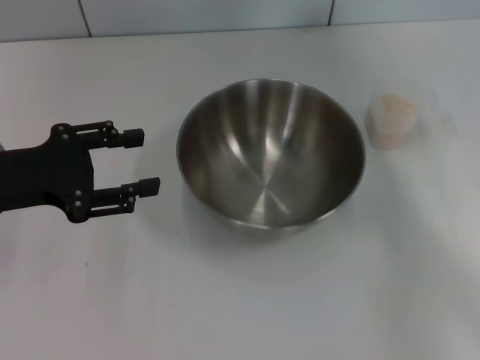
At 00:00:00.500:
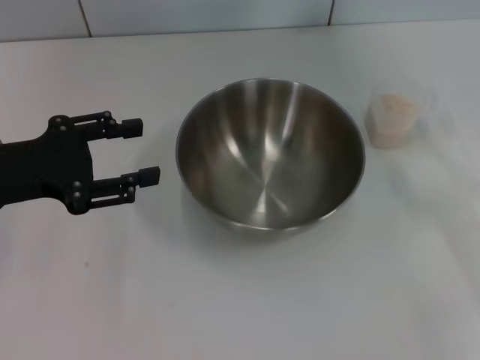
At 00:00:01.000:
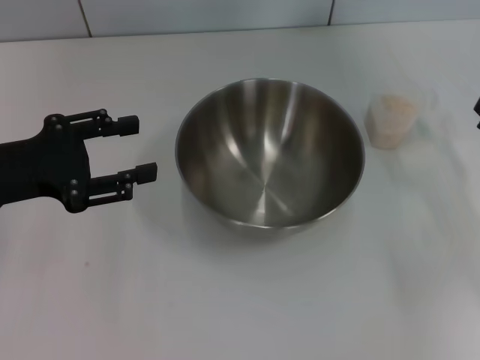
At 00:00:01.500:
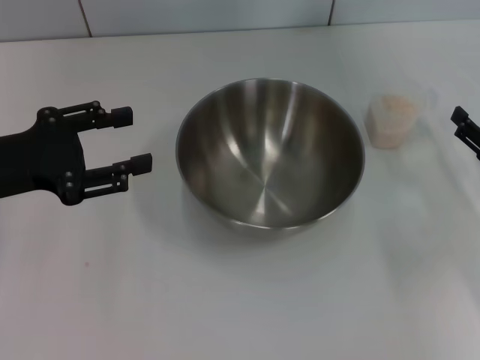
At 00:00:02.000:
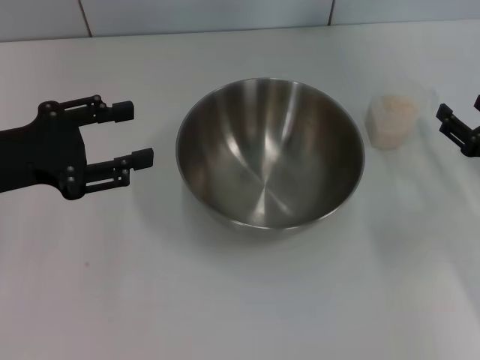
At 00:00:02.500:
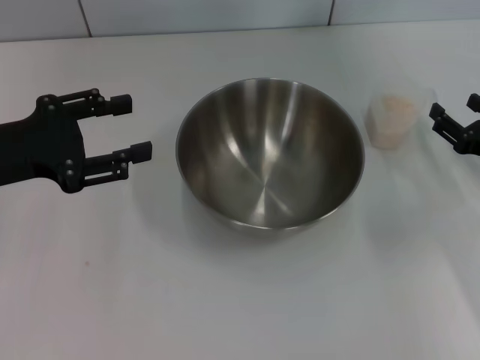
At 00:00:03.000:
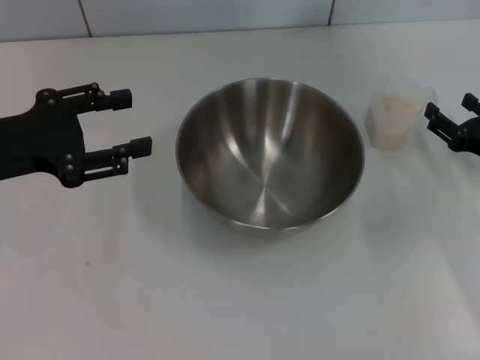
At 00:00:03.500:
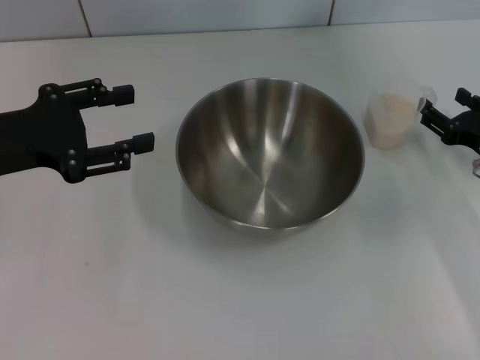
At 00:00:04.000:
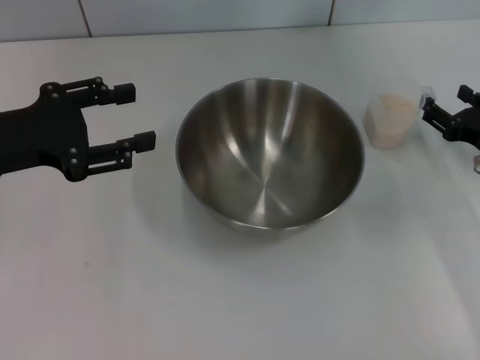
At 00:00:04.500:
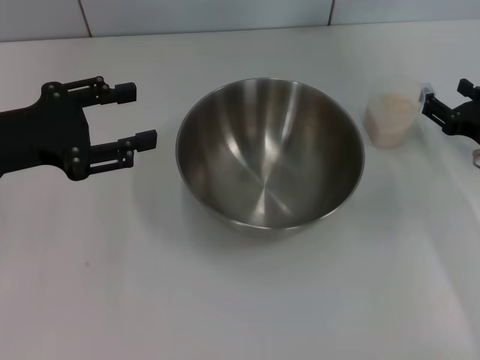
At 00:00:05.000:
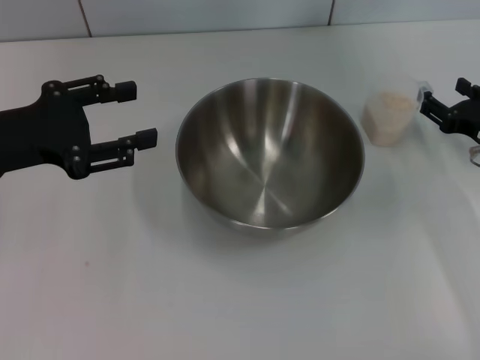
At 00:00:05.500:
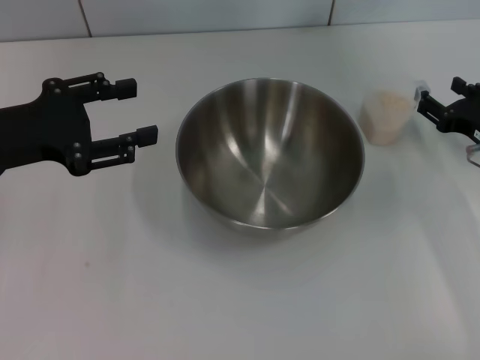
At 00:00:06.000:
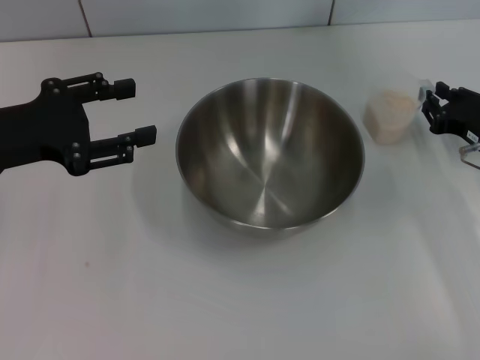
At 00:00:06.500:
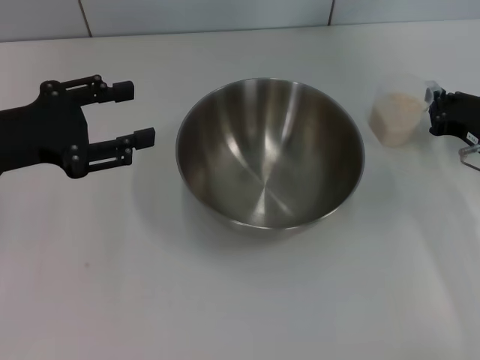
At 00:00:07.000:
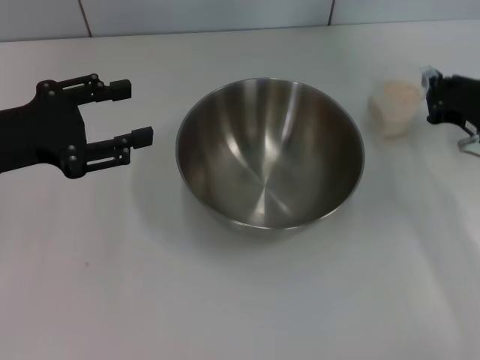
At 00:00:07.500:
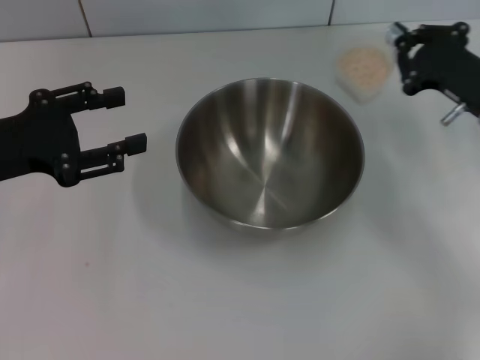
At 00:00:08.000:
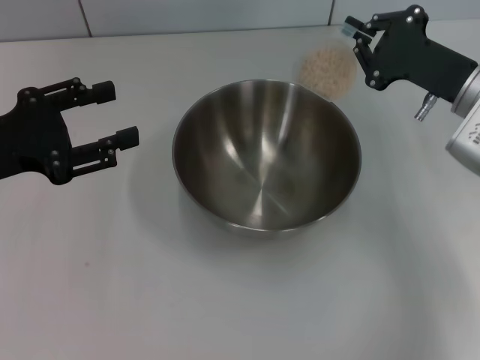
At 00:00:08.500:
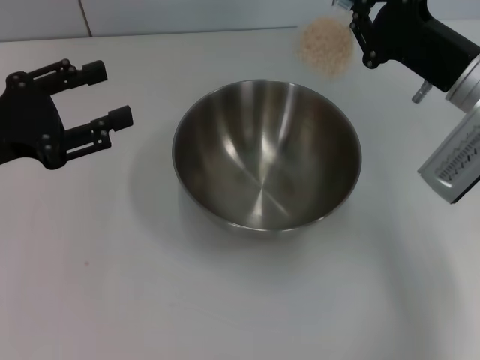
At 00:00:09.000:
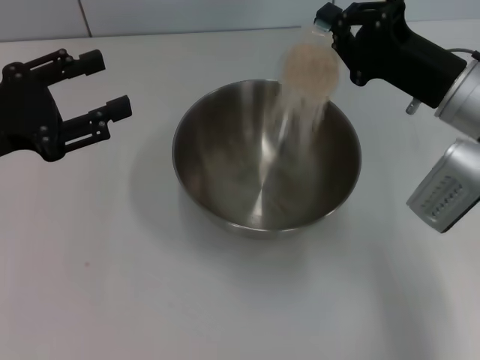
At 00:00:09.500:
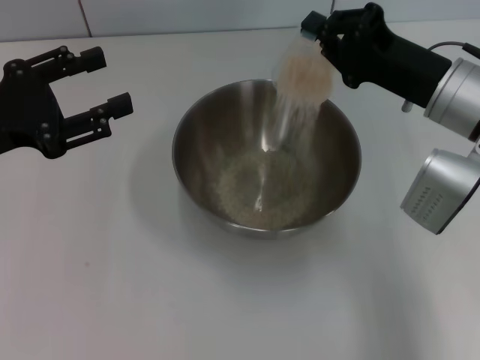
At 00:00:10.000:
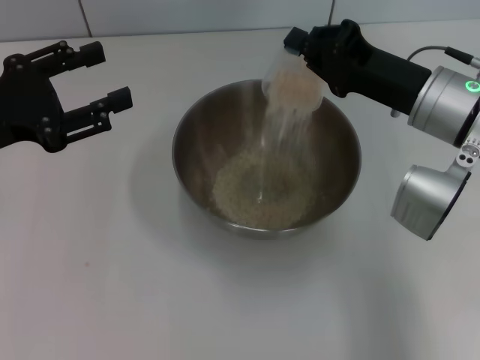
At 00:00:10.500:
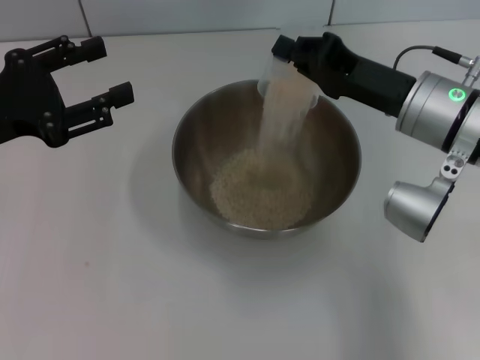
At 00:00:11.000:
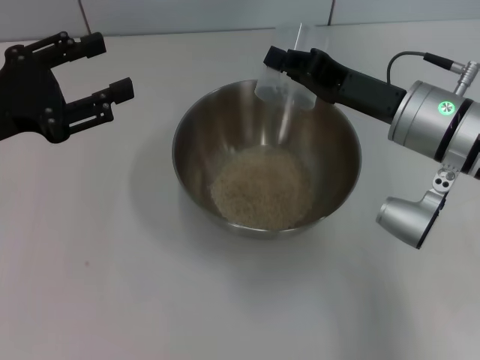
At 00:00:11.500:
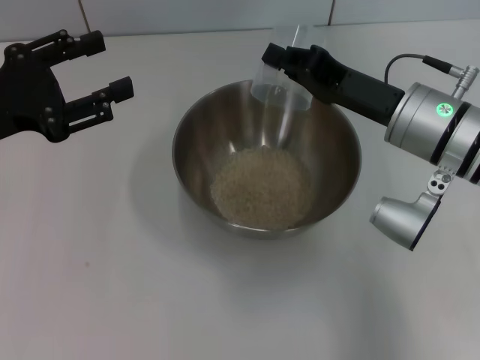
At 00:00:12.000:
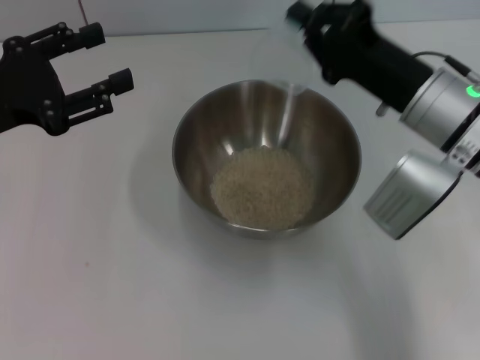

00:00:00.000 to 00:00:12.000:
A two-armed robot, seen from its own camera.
Task of the whole recording: Place the bowl in the middle of the table with one hand and pour the rice from the grain cup into it with the other hand.
Step, 00:00:00.000 to 00:00:07.000: Pick up the cup with rice in it with the right gripper.
00:00:00.000 to 00:00:02.000: The right gripper goes approximately 10 cm downward and forward.
00:00:02.000 to 00:00:04.000: The grippers stay close to where they were, moving slightly.
00:00:04.000 to 00:00:06.000: The right gripper closes up.
00:00:06.000 to 00:00:08.000: The right gripper heads upward and to the left, covering about 10 cm, and closes up.
00:00:08.000 to 00:00:10.000: The right gripper shifts about 5 cm to the left.
00:00:10.000 to 00:00:12.000: There are only small adjustments of the grippers.

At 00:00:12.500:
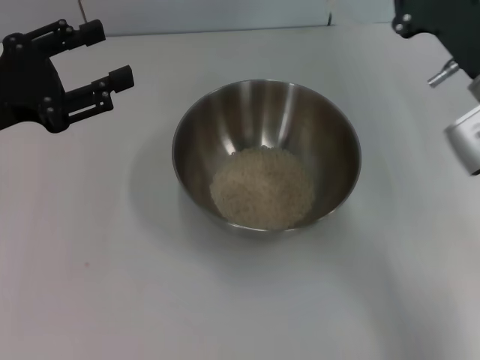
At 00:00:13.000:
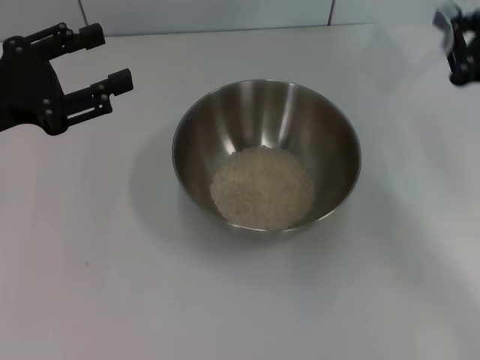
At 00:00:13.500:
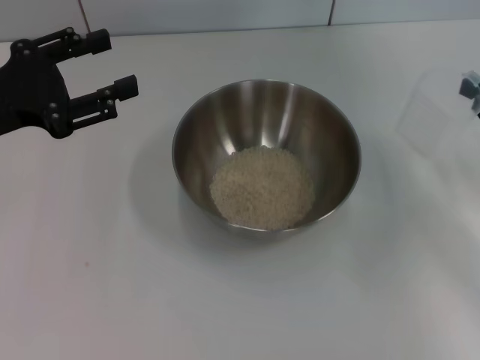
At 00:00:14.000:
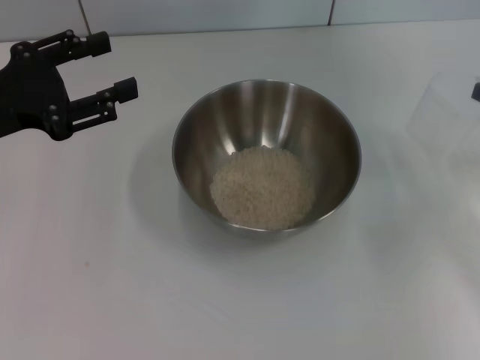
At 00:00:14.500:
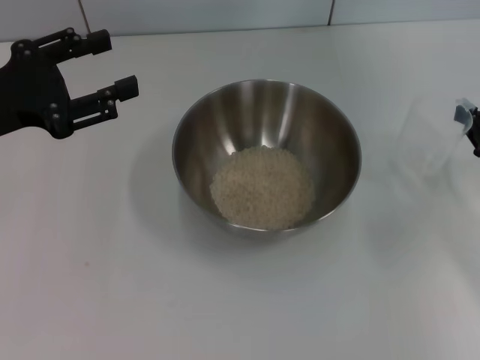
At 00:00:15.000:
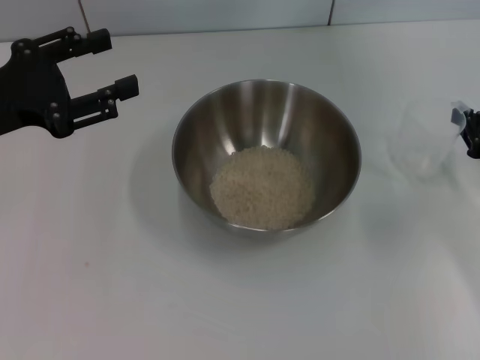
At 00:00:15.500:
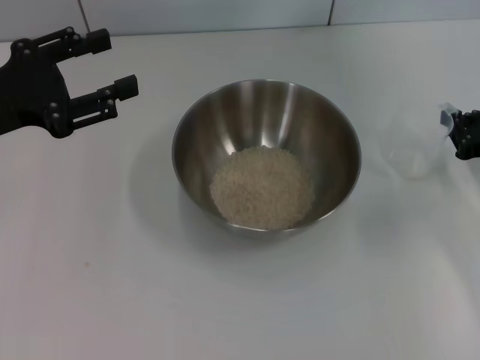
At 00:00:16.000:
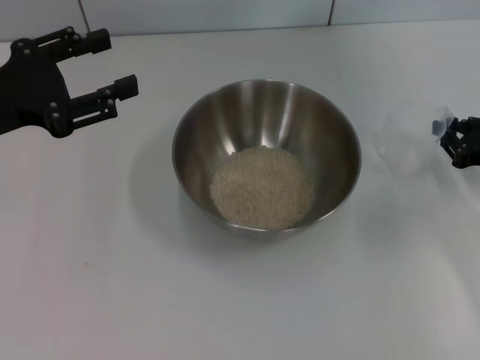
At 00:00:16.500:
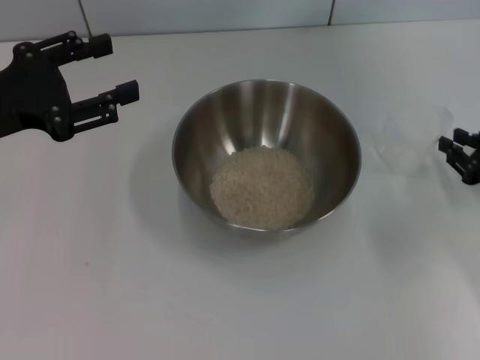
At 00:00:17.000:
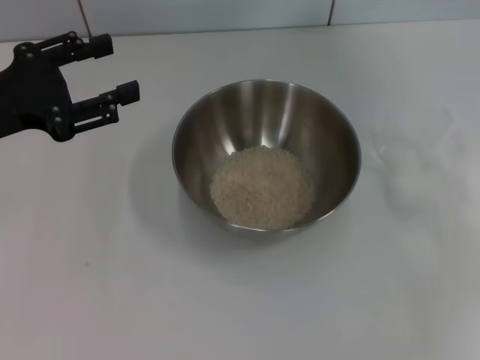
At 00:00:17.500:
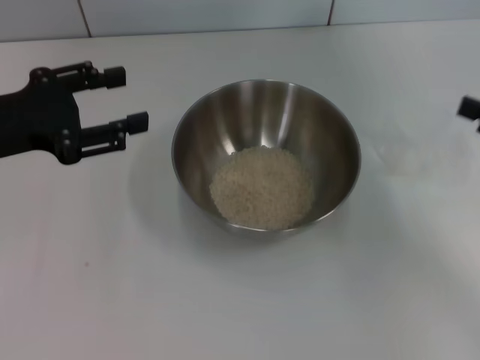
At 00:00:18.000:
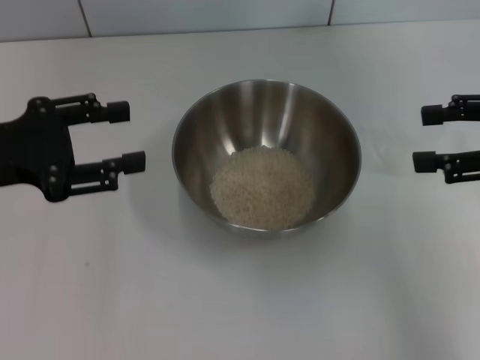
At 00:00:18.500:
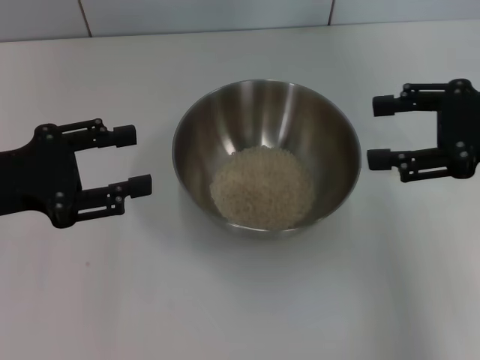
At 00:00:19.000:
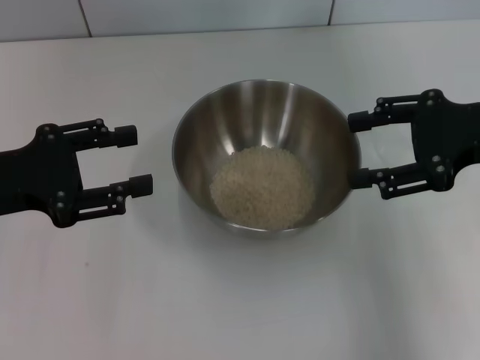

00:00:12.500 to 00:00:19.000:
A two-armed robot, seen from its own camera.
Task of the whole recording: Place the bowl in the middle of the table with one hand and pour the rice from the grain cup into it with the other hand.
Step, 00:00:12.500 to 00:00:16.500: Place the cup on the table with the right gripper.
00:00:12.500 to 00:00:14.500: The right gripper is displaced to the right and downward by about 15 cm.
00:00:17.000 to 00:00:19.000: The right gripper travels upward, to the left and forward by about 20 cm, and opens.
